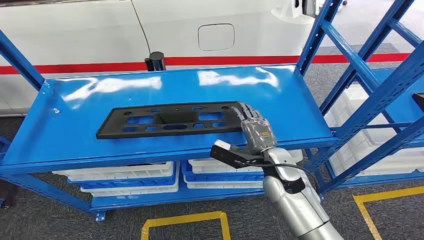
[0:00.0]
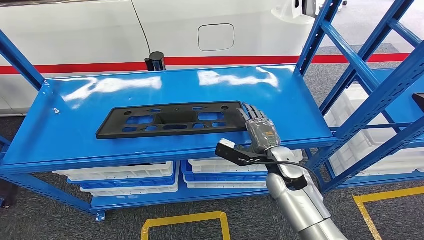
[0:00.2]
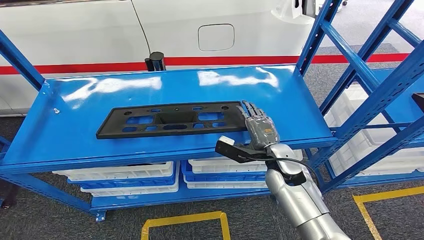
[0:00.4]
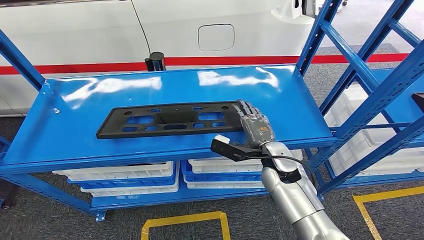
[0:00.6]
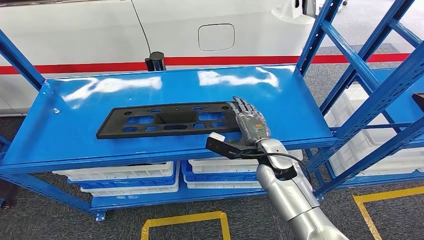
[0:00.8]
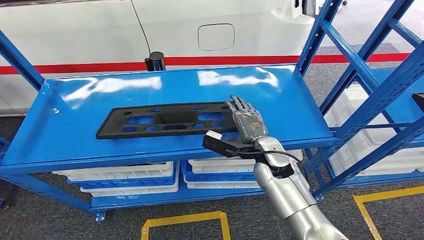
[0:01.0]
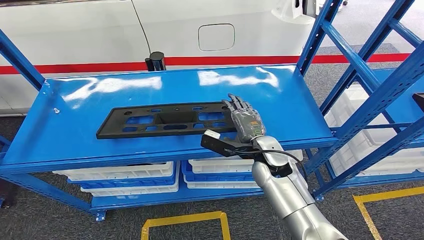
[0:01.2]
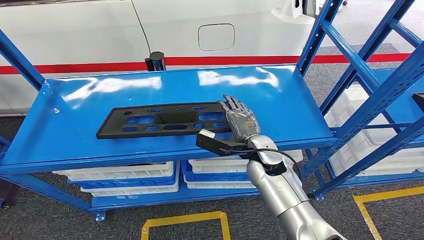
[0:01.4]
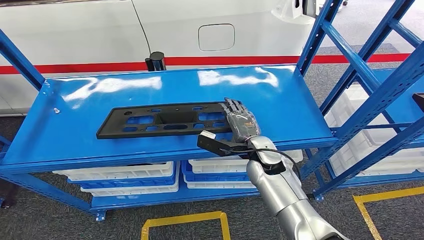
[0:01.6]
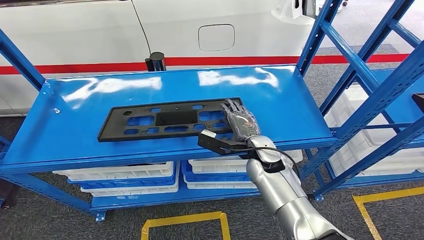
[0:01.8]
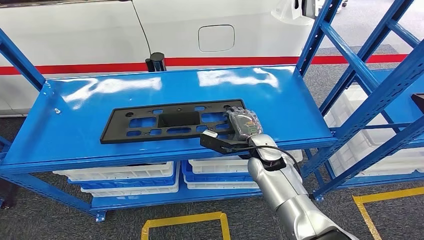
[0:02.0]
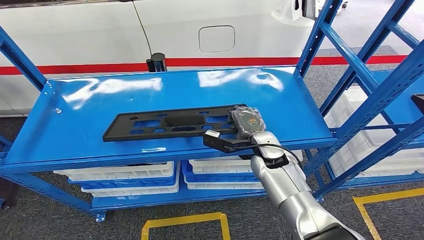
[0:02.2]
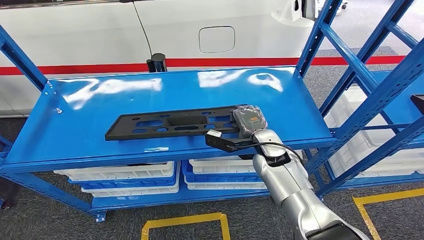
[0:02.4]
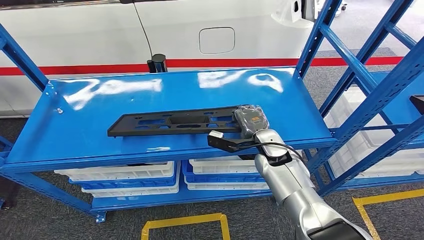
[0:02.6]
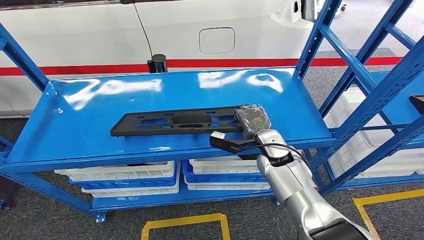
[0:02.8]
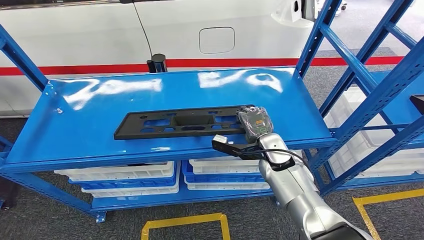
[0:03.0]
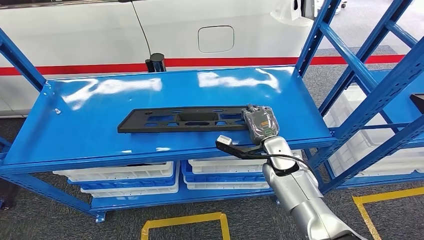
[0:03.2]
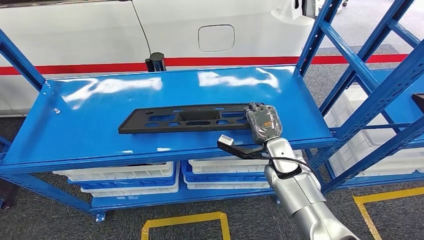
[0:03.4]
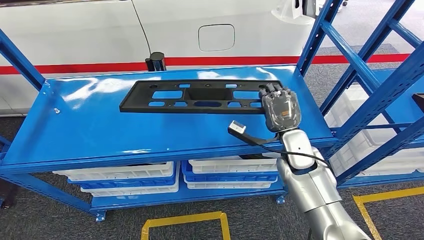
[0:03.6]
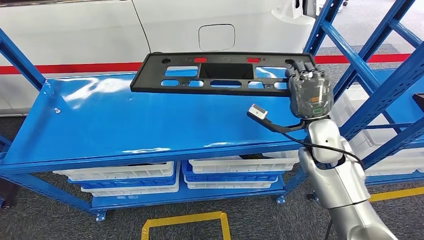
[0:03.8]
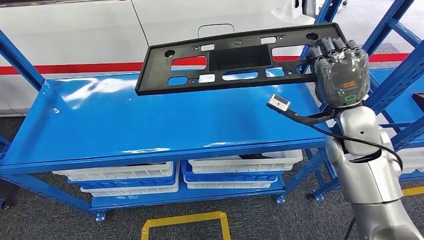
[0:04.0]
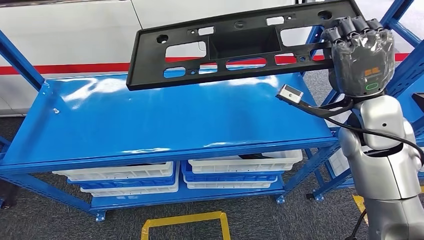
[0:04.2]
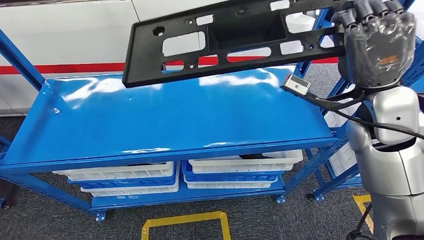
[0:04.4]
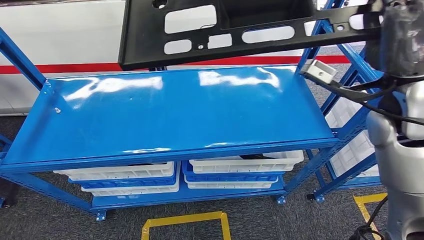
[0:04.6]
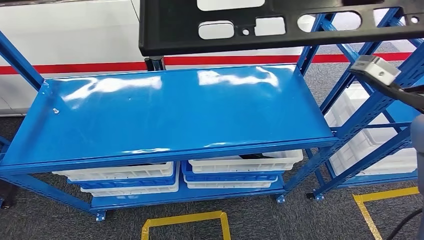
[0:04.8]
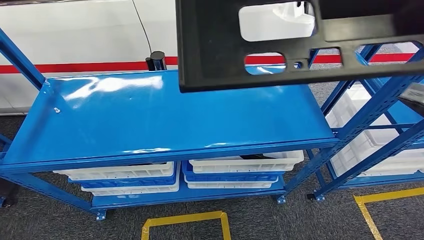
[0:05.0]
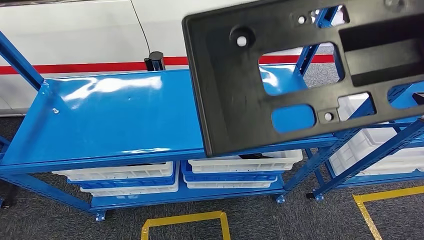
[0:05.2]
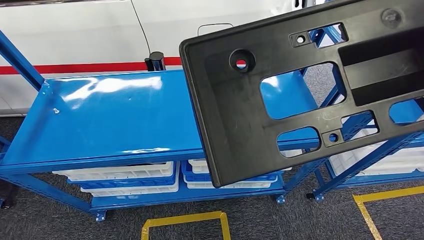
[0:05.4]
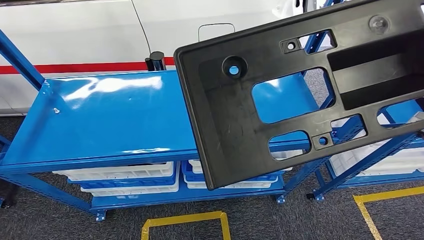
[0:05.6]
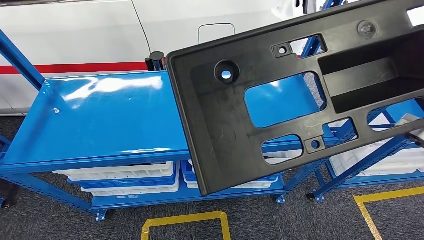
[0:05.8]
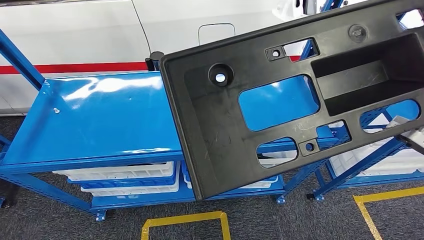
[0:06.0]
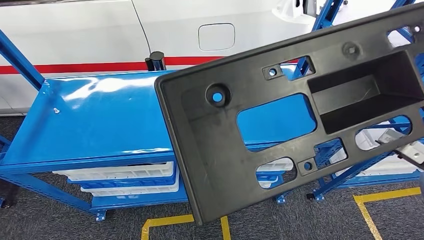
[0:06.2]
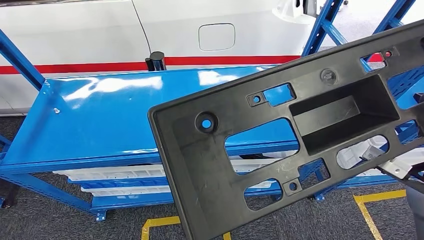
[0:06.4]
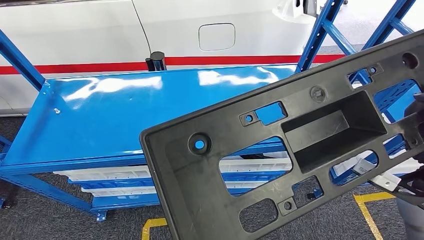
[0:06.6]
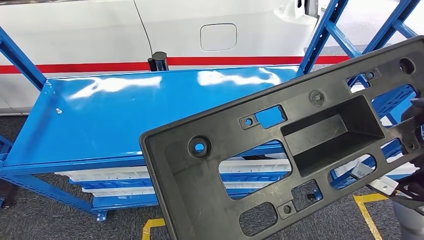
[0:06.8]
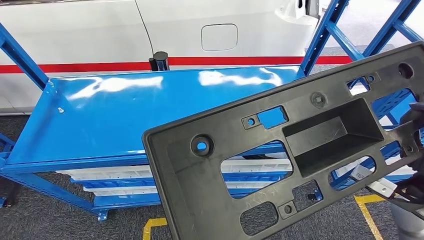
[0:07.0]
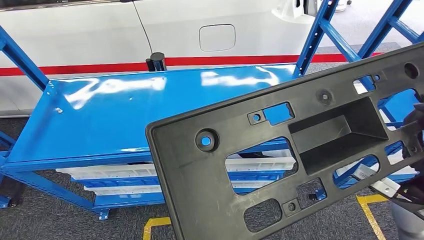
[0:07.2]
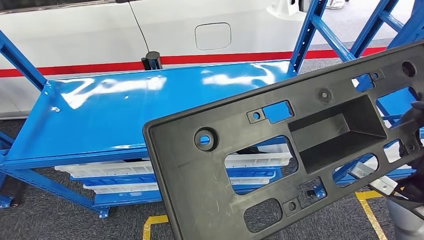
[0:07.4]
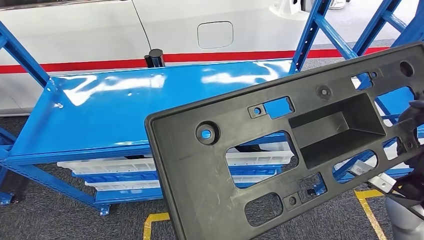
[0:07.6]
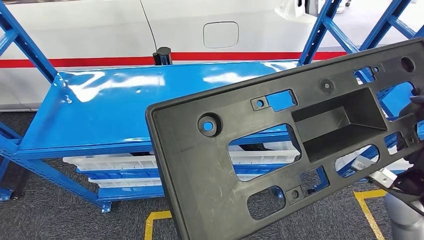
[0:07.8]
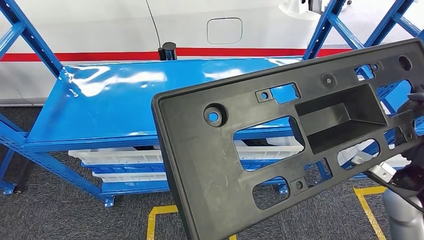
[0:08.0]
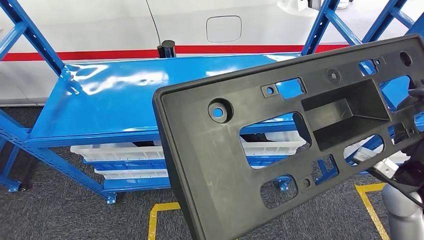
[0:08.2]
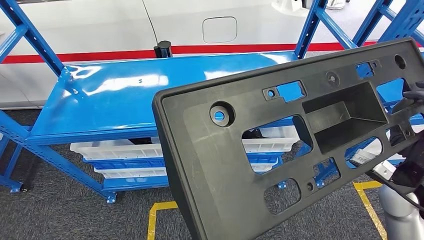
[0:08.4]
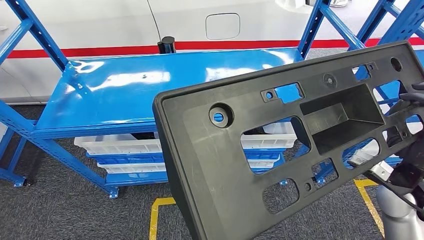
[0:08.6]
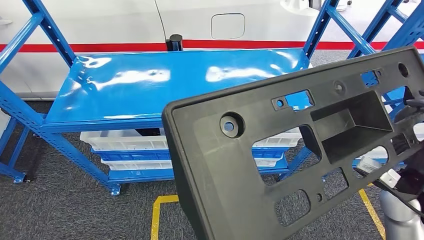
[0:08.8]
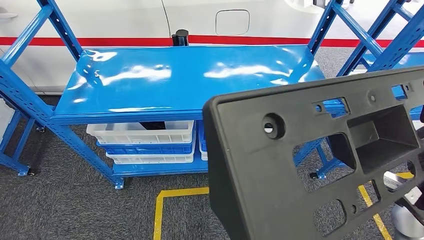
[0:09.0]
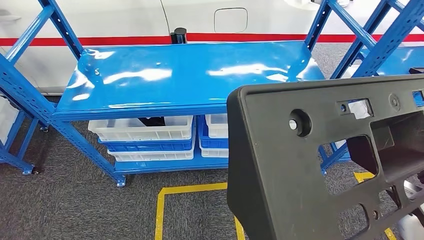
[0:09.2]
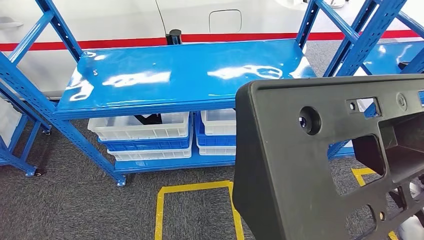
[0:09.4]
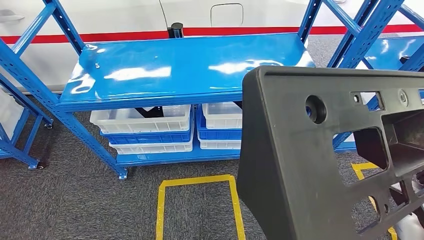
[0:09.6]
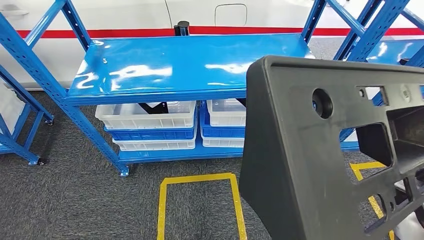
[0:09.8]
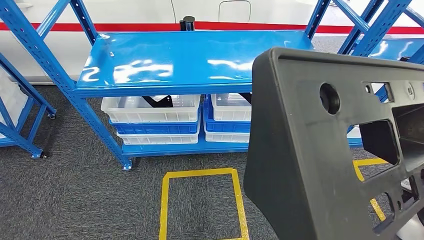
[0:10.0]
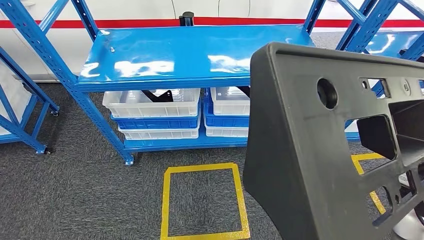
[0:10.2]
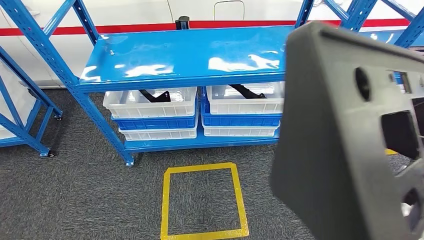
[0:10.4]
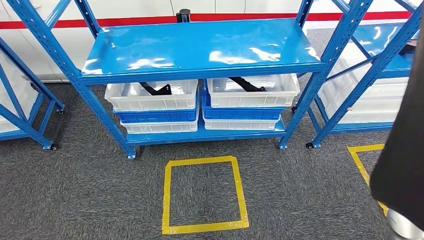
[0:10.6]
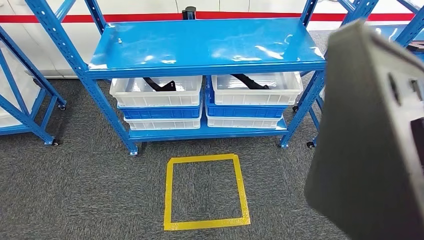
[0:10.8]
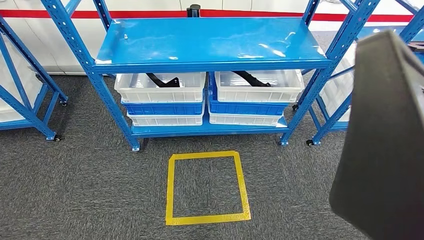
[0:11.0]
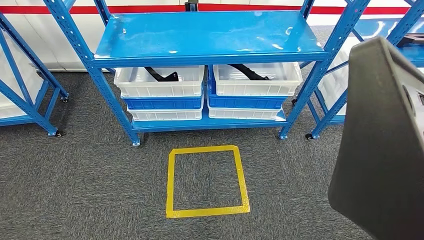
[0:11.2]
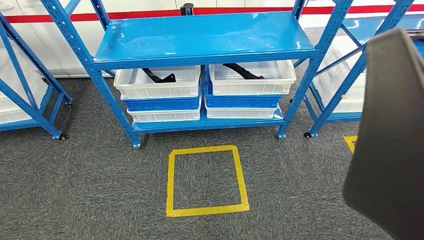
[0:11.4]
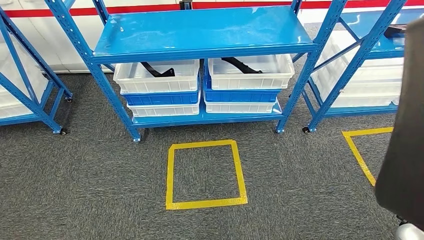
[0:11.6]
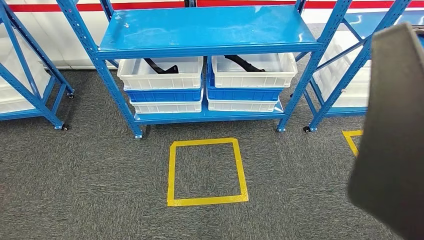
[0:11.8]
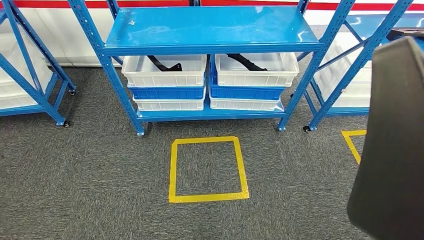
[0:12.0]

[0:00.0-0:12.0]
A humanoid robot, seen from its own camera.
Step, 0:00.0 to 0:07.8: Pick up the large material from the shelf.

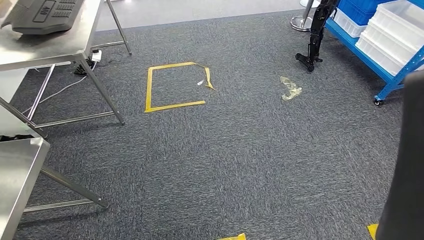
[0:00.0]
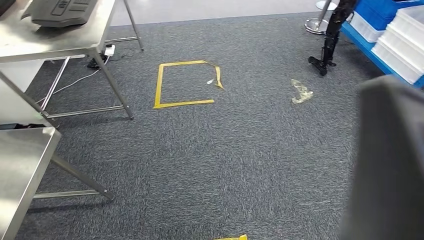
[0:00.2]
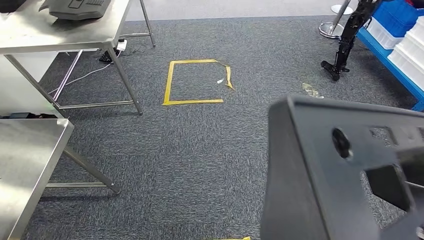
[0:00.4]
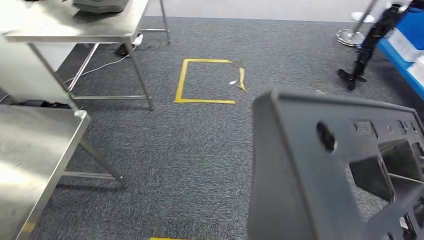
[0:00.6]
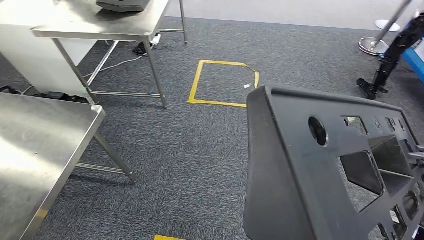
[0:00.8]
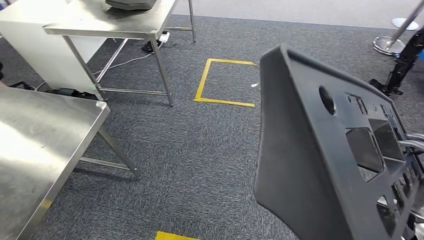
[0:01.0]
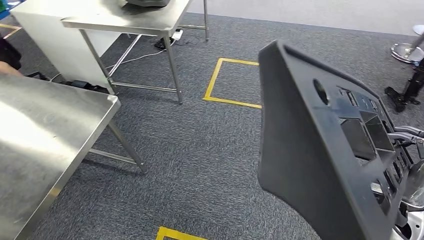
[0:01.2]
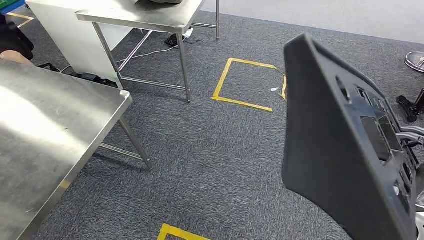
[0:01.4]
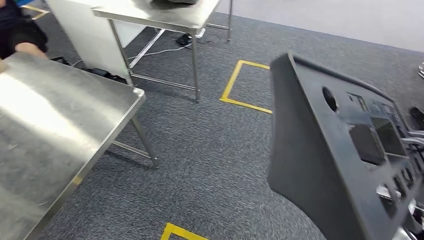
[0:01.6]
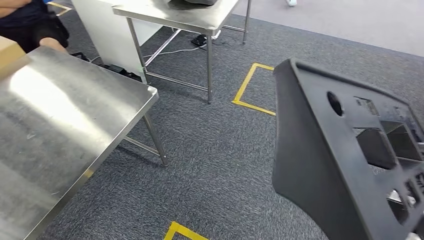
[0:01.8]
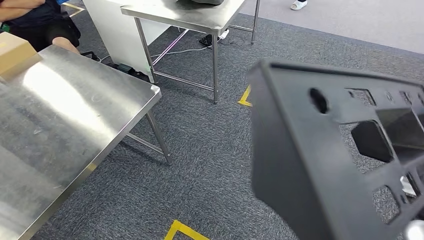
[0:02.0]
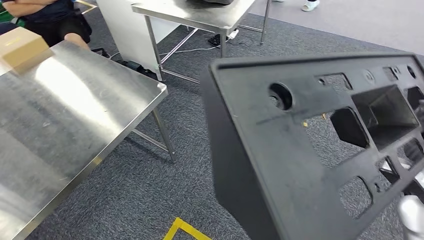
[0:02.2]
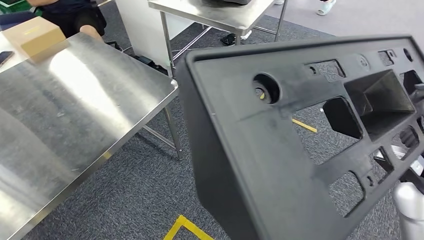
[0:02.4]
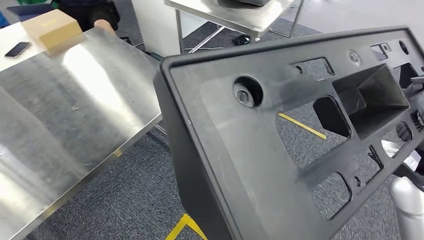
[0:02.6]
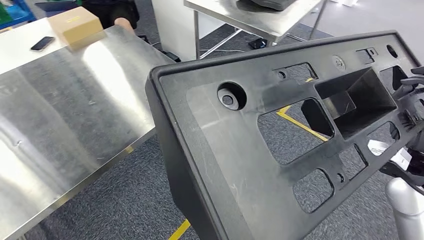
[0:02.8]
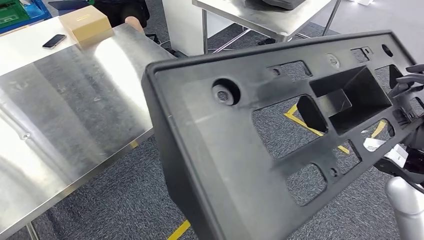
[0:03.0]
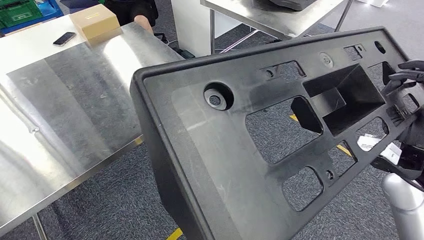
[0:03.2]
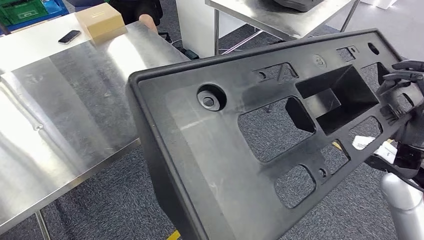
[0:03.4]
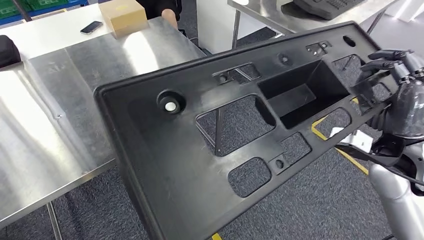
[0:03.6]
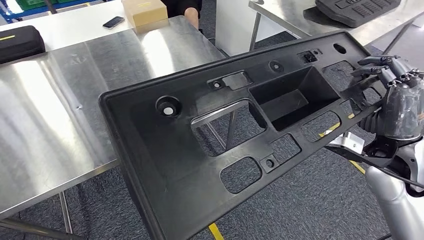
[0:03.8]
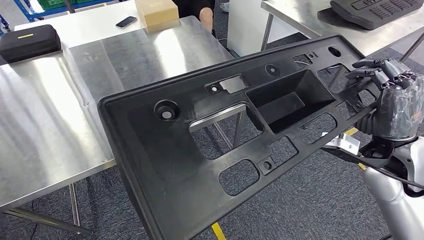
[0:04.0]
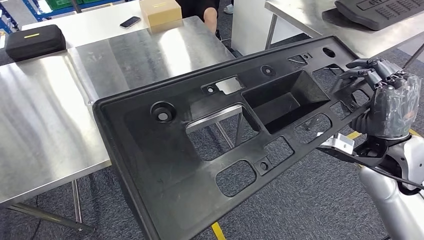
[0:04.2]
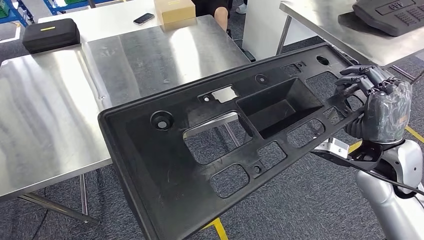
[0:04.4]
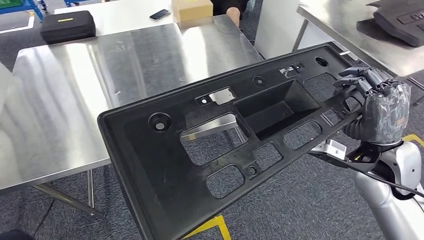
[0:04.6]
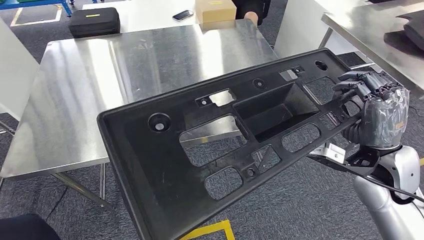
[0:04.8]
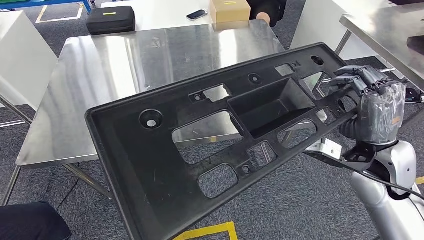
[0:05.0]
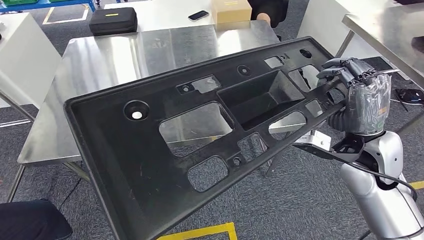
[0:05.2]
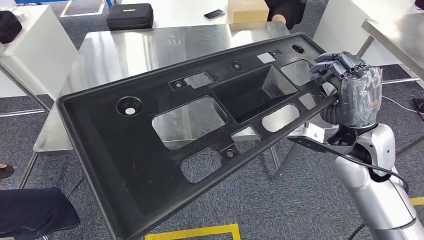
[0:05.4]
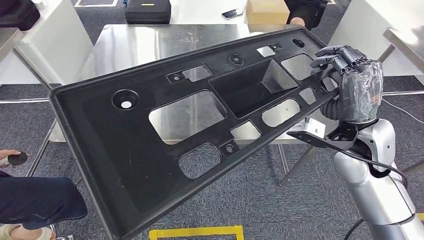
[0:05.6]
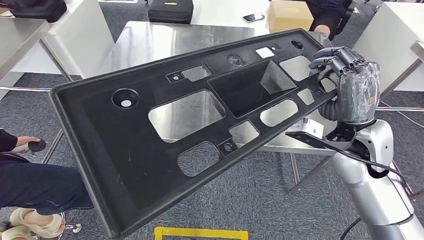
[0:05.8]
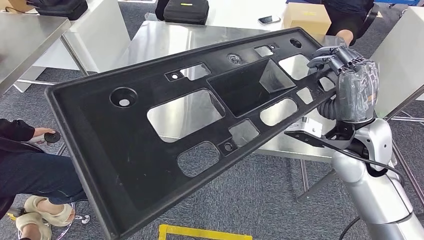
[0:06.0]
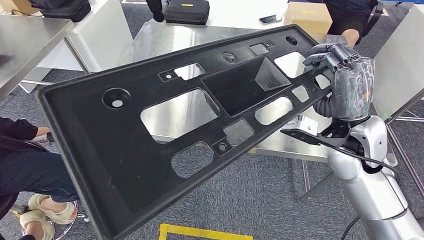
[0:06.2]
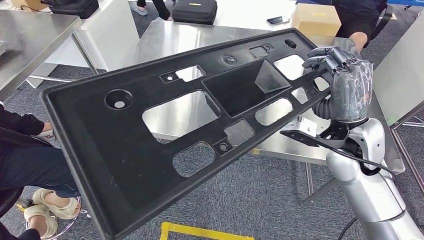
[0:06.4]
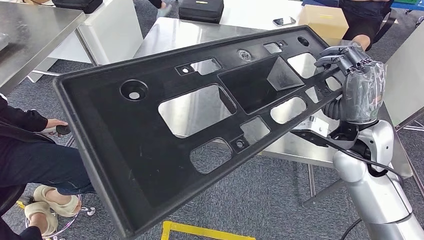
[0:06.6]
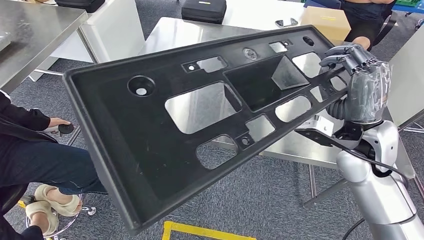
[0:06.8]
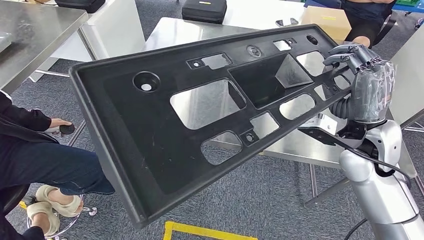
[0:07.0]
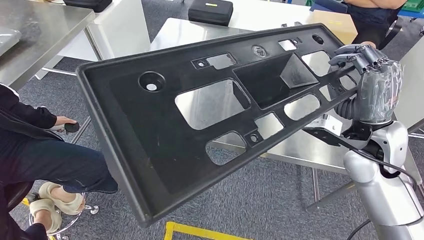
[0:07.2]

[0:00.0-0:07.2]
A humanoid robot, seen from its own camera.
Step, 0:00.0 to 0:05.8: Move the large material to the workbench.
